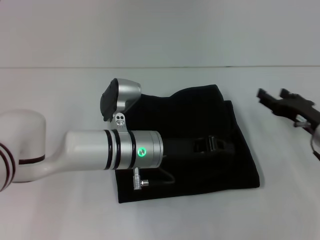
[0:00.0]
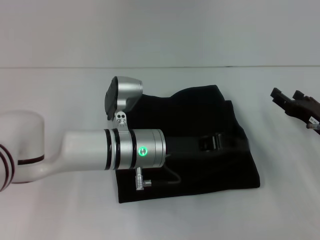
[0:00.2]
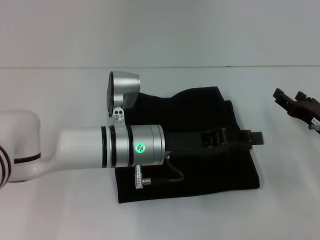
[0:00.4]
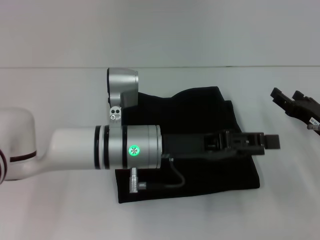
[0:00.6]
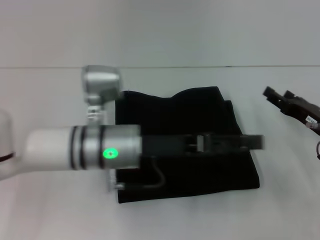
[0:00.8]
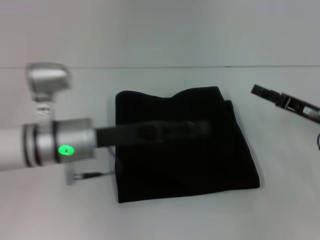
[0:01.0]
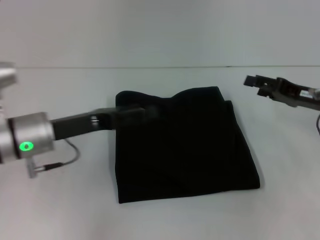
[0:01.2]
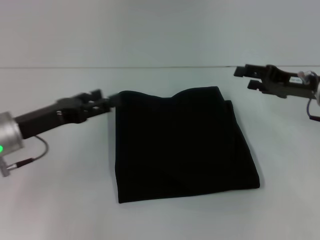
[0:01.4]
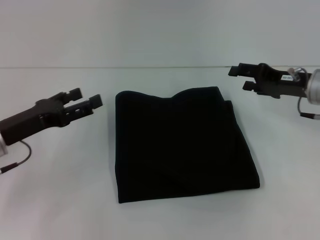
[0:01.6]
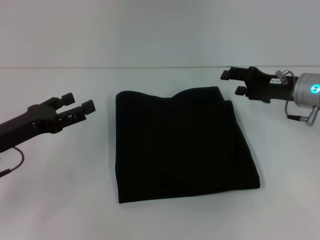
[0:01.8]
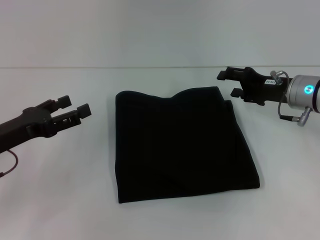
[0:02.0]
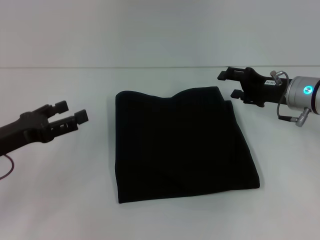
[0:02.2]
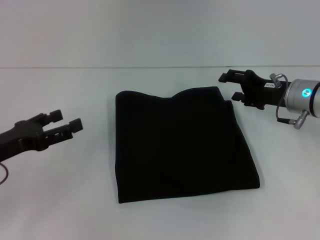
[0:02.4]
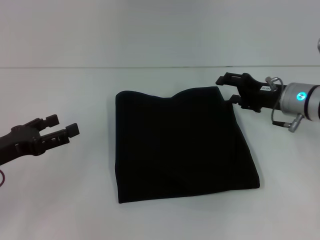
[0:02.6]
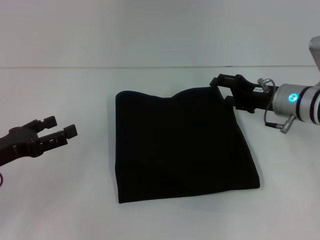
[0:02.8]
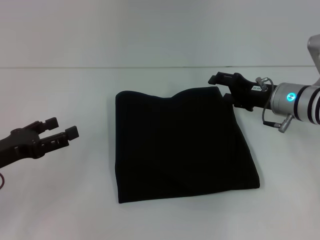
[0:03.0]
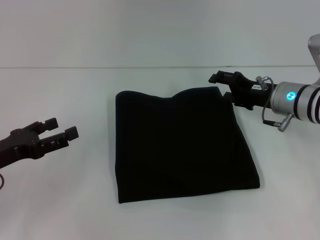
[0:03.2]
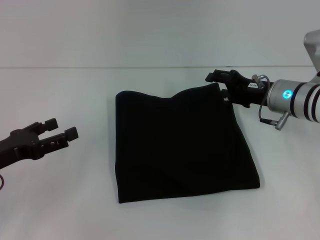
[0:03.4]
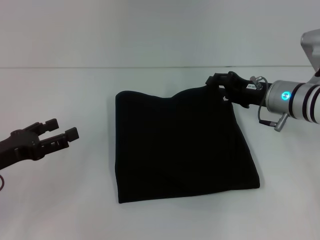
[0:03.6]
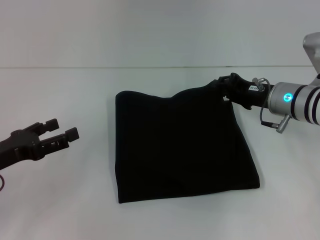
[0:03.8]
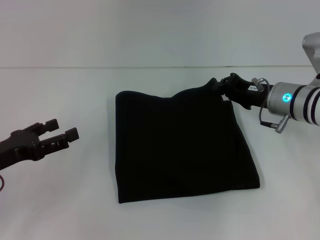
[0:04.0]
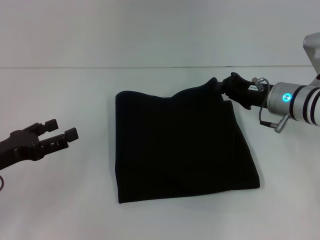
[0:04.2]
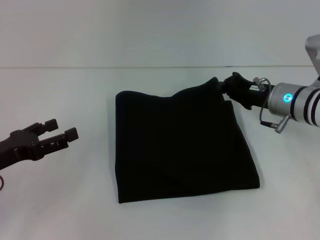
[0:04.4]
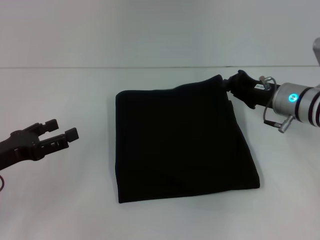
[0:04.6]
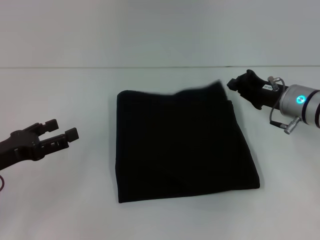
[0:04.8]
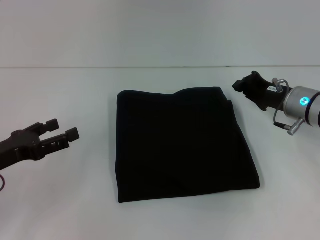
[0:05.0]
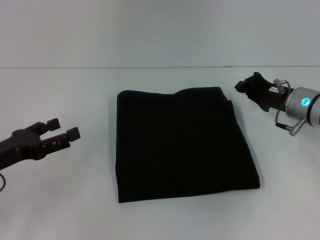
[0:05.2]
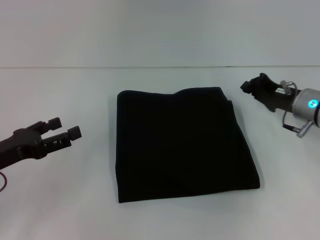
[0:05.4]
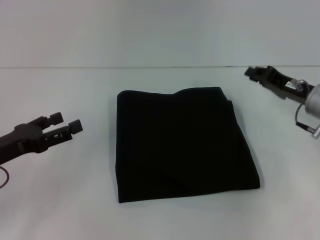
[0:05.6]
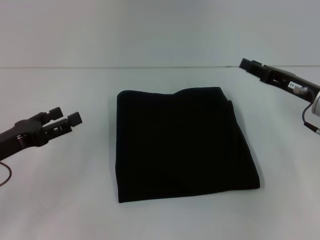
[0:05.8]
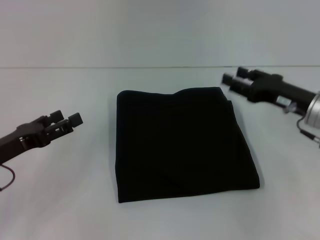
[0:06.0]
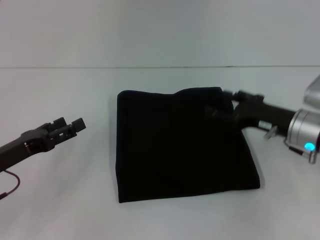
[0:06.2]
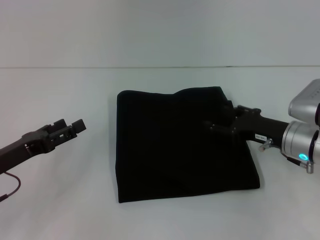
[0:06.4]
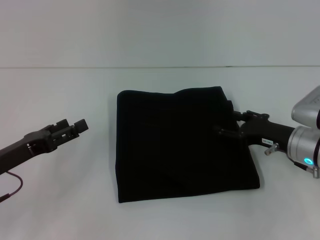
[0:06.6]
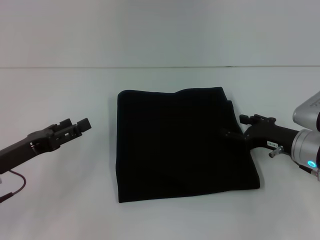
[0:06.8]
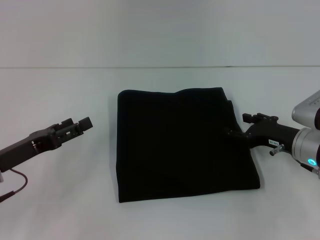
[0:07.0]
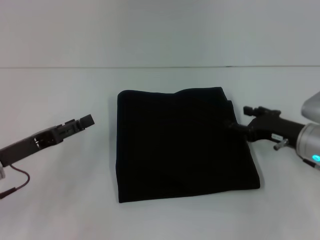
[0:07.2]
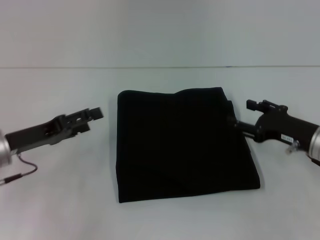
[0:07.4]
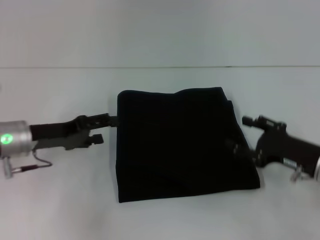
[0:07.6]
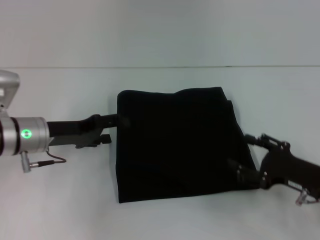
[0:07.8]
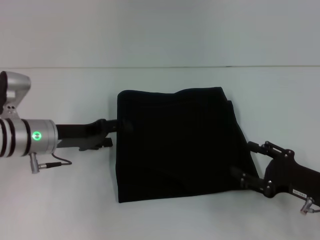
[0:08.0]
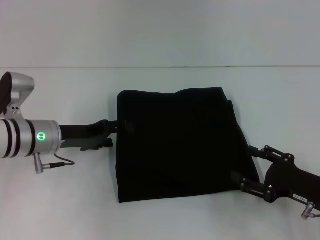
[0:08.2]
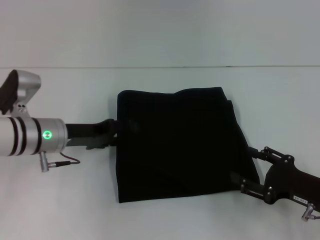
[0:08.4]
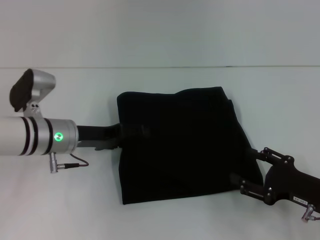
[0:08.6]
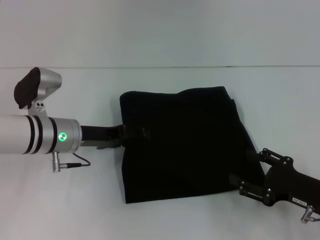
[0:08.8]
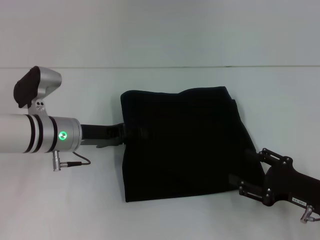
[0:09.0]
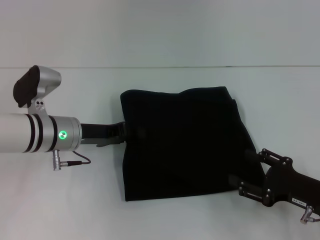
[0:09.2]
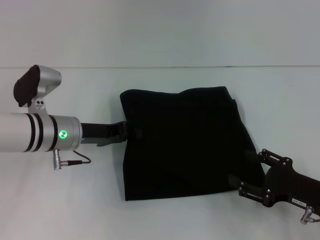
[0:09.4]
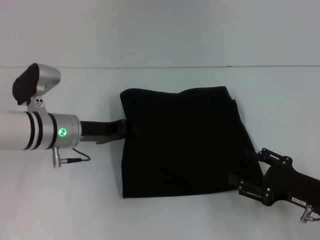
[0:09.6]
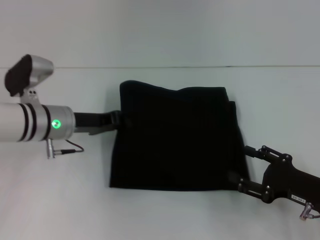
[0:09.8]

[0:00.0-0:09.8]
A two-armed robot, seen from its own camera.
0:00.0 to 0:01.4: The left gripper goes approximately 20 cm to the left, and opens up. The right gripper travels upward by roughly 10 cm.
0:01.4 to 0:02.8: Both grippers travel together to the left, approximately 5 cm.
0:02.8 to 0:04.2: The right gripper closes up.
0:04.2 to 0:05.6: The right gripper is displaced to the right by approximately 5 cm.
0:05.6 to 0:07.0: The right gripper shifts by about 5 cm, and opens.
0:07.0 to 0:08.4: The left gripper goes roughly 10 cm forward and to the right; the right gripper heads backward, covering some 10 cm.
0:08.4 to 0:09.8: The left gripper closes.

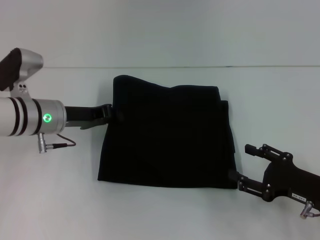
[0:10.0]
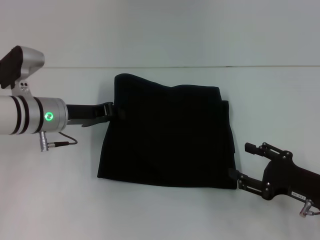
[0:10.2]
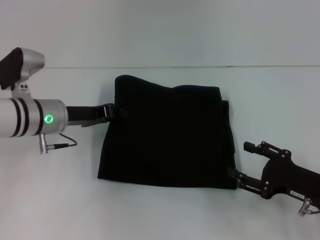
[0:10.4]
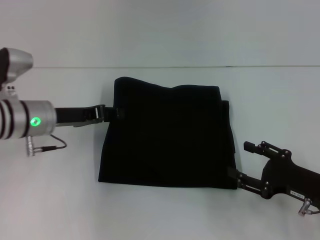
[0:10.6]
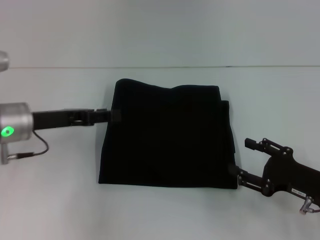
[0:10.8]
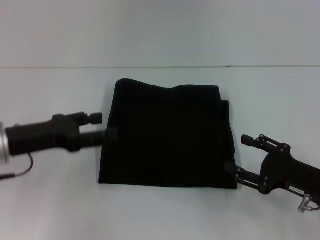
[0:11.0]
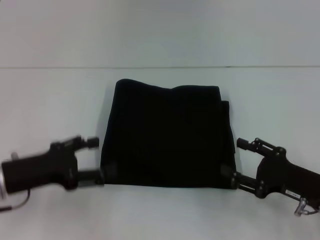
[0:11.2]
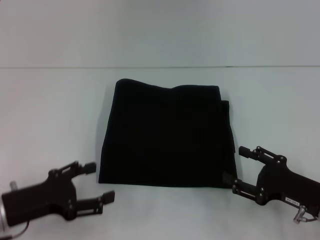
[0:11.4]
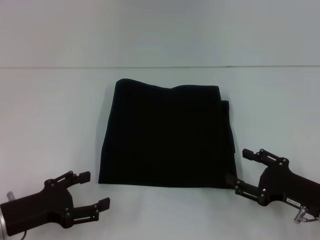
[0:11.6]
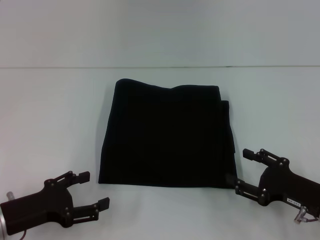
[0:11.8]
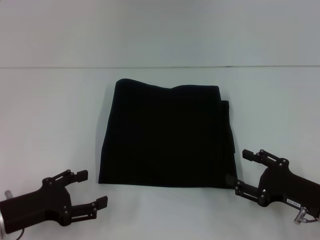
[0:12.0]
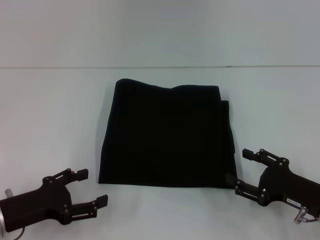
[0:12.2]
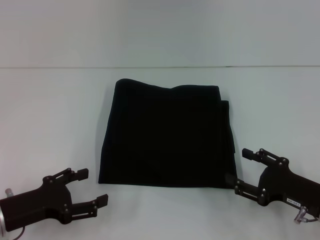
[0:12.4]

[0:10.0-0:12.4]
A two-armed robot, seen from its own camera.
0:10.0 to 0:11.2: The left gripper shifts some 15 cm backward and to the left, and opens up.
0:11.2 to 0:12.4: The left gripper moves downward, some 5 cm.

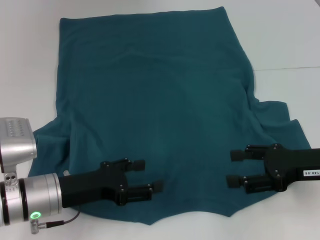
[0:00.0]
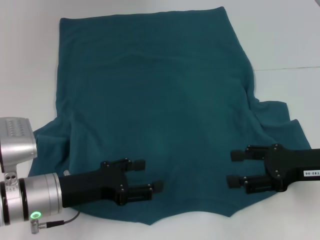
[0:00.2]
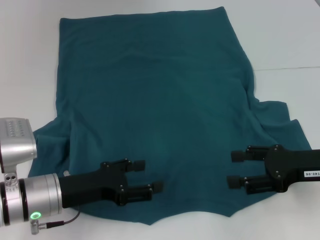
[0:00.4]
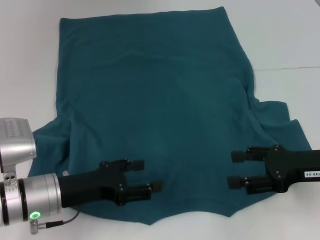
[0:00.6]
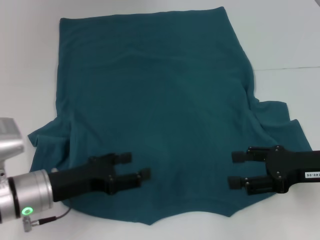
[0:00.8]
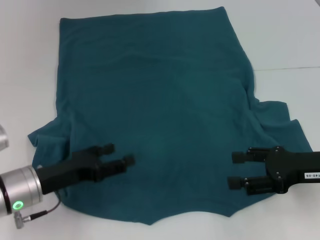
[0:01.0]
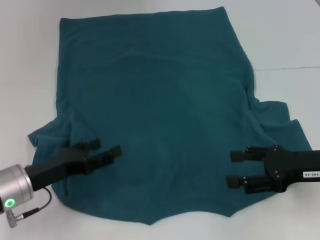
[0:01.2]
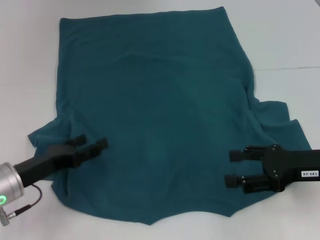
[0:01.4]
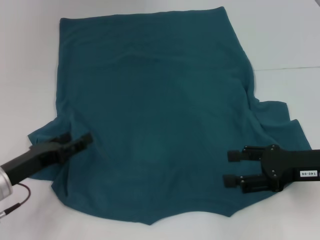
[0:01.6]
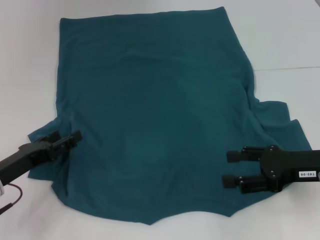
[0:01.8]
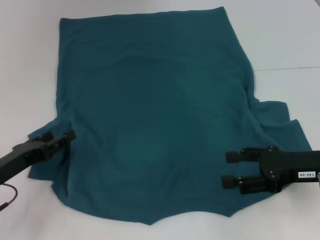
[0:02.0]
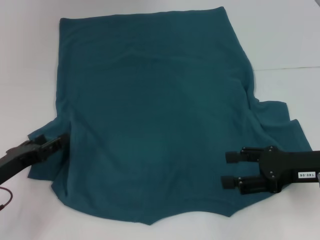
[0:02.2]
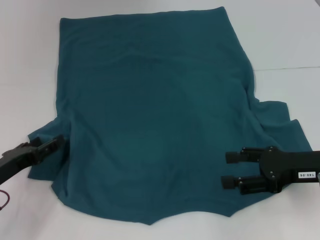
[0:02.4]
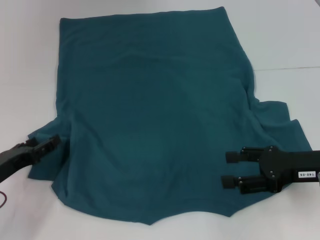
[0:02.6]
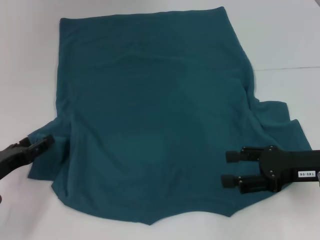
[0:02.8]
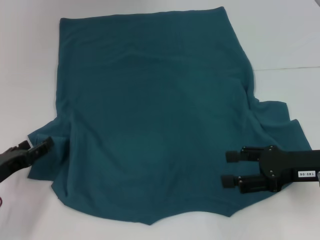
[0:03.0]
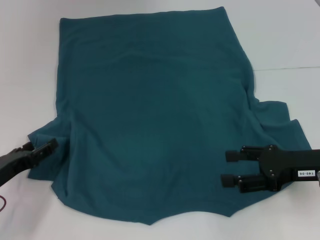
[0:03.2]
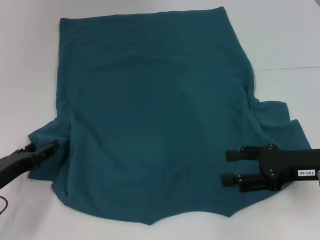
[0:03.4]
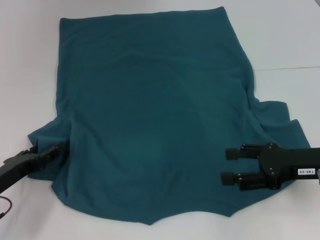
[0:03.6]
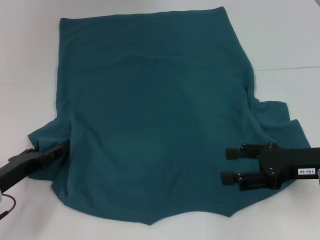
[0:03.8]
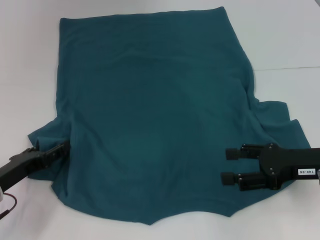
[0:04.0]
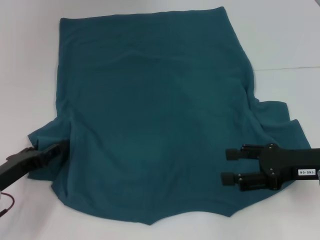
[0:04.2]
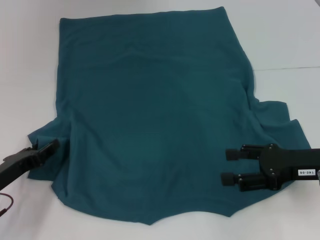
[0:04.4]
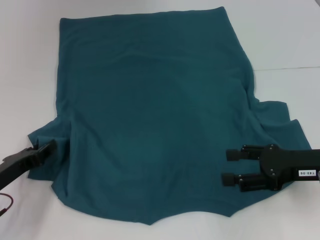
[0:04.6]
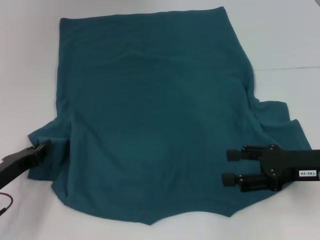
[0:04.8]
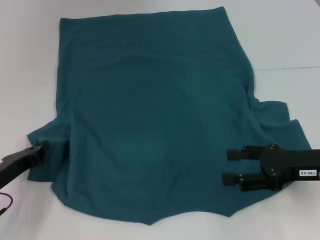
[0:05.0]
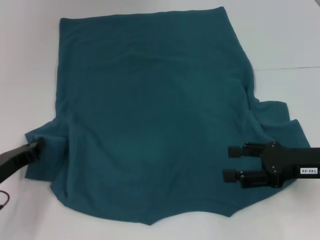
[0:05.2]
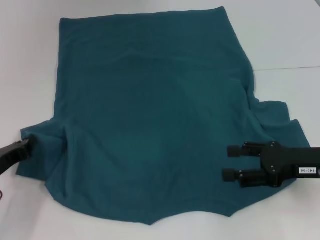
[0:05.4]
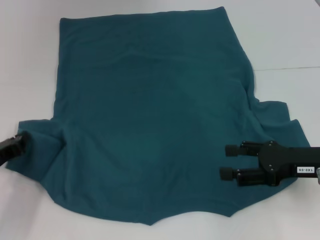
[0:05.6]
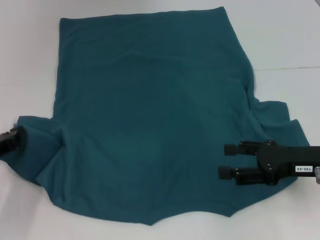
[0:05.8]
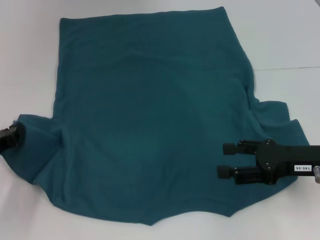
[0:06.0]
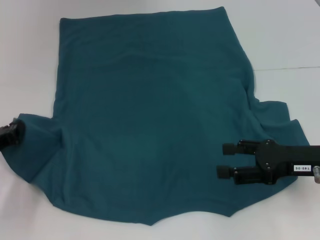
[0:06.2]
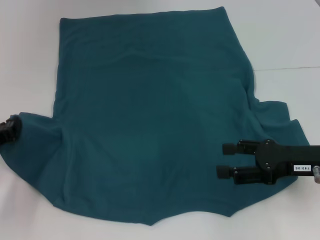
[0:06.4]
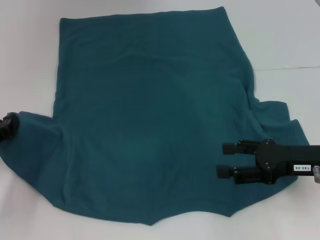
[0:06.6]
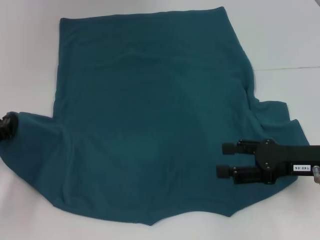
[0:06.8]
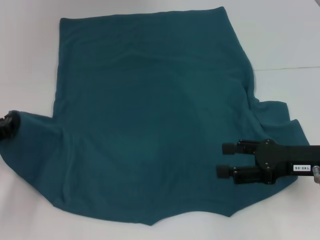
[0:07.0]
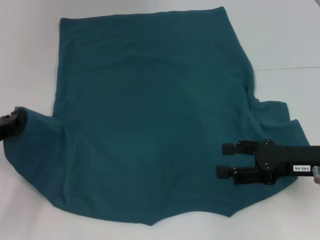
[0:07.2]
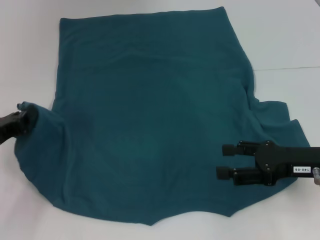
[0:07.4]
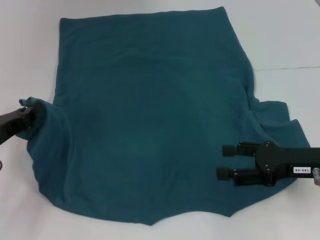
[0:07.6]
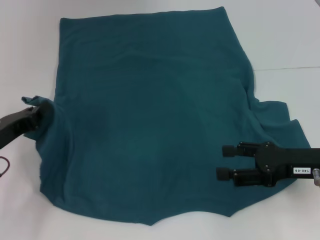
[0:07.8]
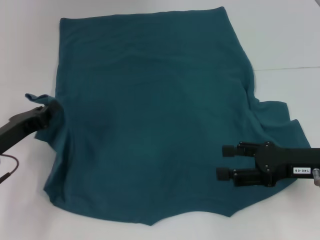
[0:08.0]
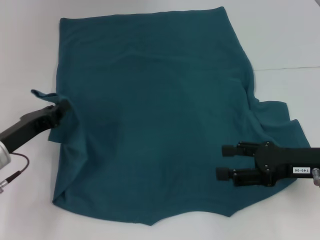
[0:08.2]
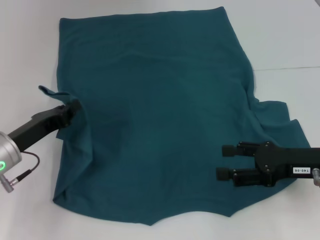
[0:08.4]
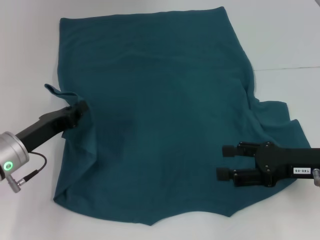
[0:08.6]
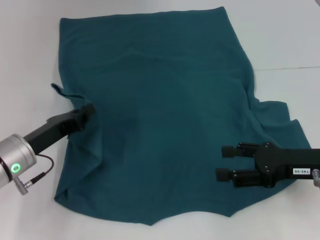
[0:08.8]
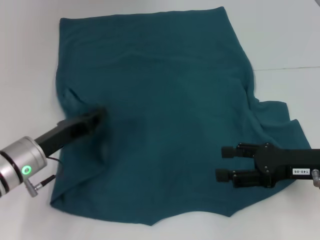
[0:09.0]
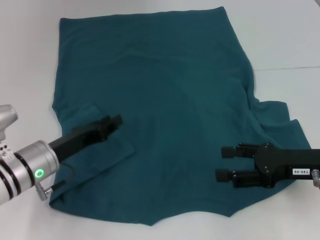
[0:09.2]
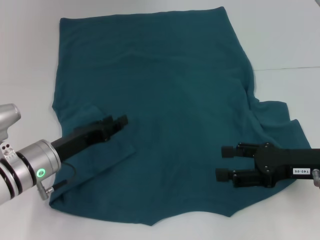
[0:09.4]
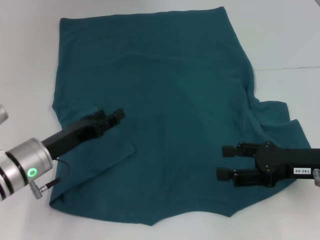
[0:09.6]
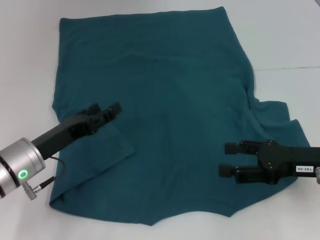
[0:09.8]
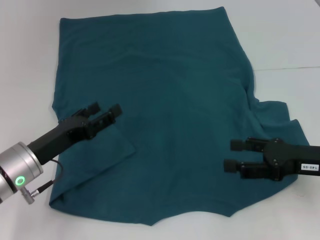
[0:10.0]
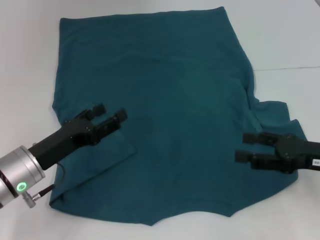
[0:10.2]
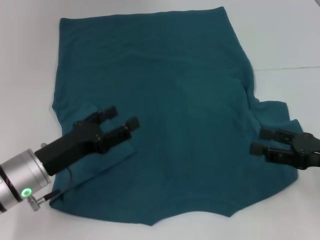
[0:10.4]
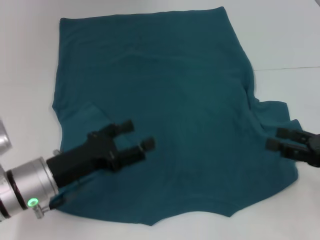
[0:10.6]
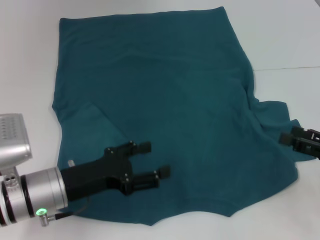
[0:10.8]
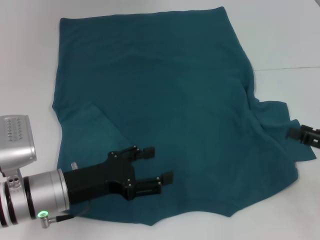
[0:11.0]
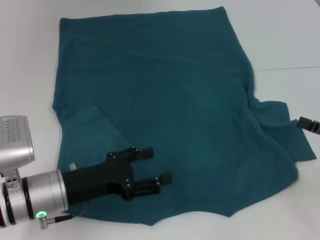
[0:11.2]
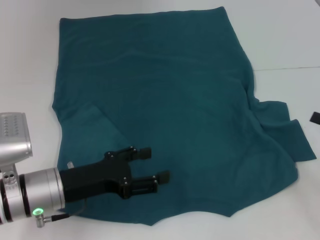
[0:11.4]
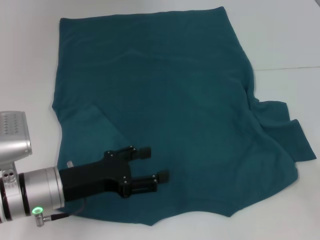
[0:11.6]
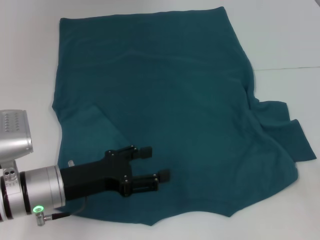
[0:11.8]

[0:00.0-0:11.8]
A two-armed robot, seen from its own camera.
Step, 0:00.0 to 0:10.0: Fold the bottom left sleeve with your left hand.
0:00.0 to 0:01.4: The left gripper travels to the left by some 5 cm.
0:01.4 to 0:03.0: The left gripper travels to the left by roughly 5 cm.
0:03.0 to 0:04.4: The grippers stay close to where they were, moving slightly.
0:04.4 to 0:06.0: The left gripper closes up.
0:06.0 to 0:07.4: There are only small adjustments of the grippers.
0:07.4 to 0:08.8: The left gripper moves to the right, roughly 5 cm.
0:08.8 to 0:10.4: The left gripper opens up.
0:10.4 to 0:11.8: The right gripper goes roughly 10 cm to the right.
